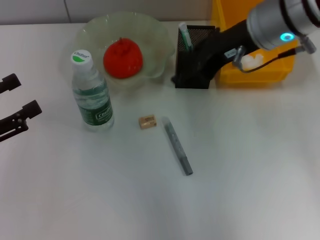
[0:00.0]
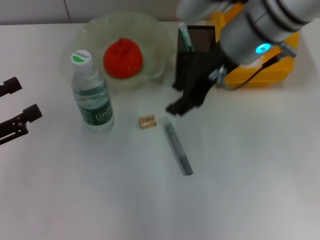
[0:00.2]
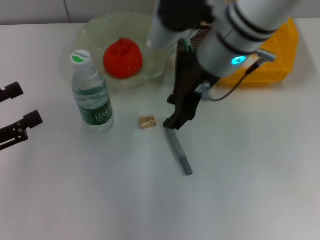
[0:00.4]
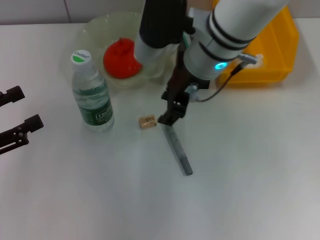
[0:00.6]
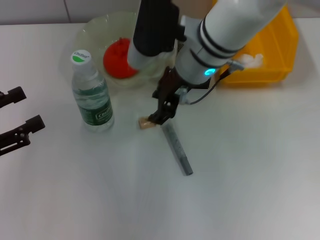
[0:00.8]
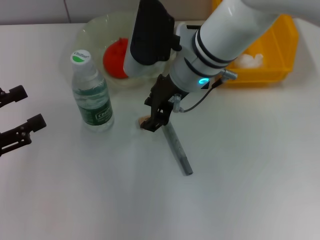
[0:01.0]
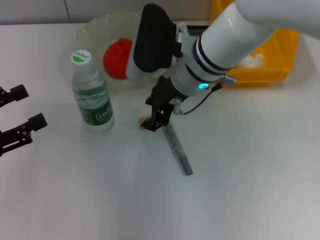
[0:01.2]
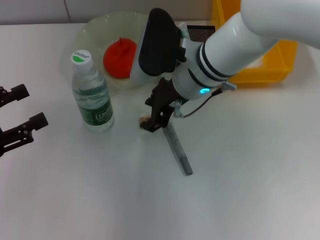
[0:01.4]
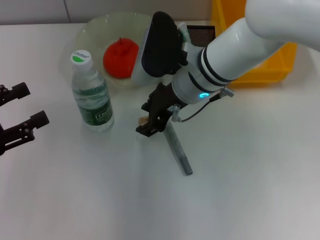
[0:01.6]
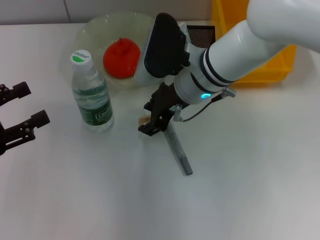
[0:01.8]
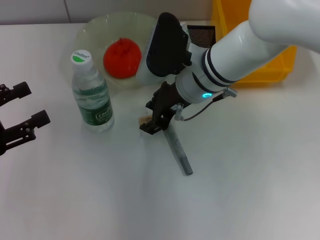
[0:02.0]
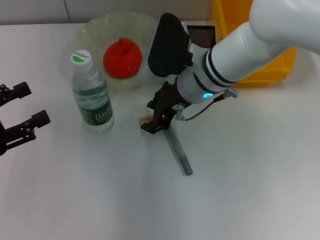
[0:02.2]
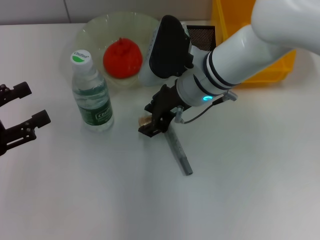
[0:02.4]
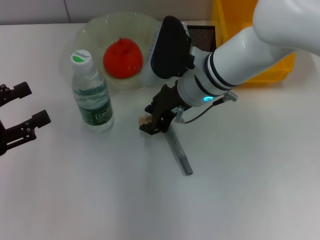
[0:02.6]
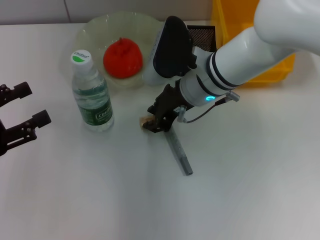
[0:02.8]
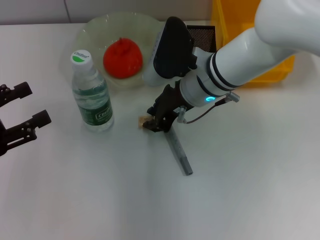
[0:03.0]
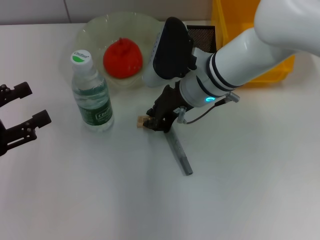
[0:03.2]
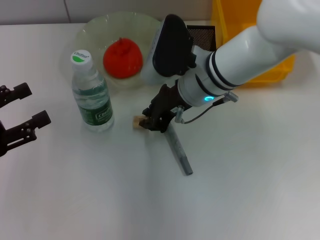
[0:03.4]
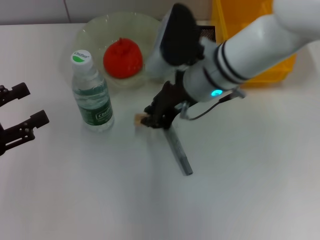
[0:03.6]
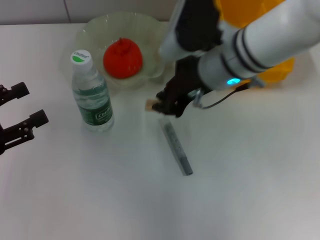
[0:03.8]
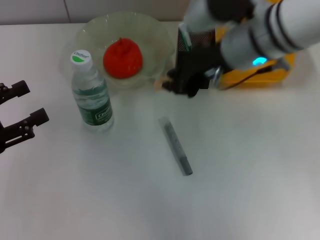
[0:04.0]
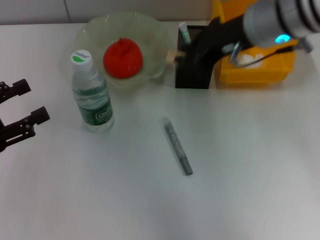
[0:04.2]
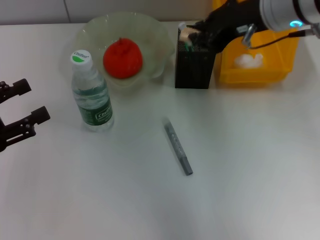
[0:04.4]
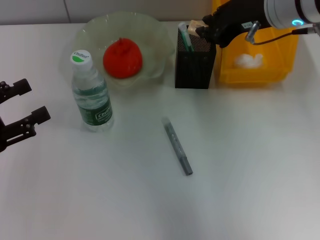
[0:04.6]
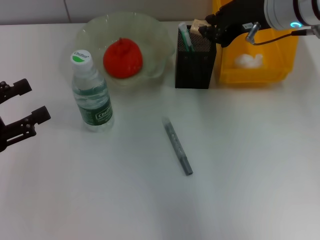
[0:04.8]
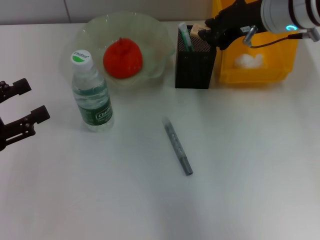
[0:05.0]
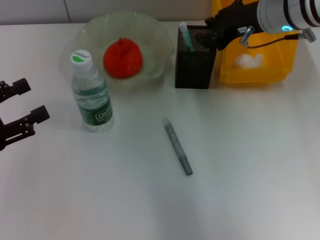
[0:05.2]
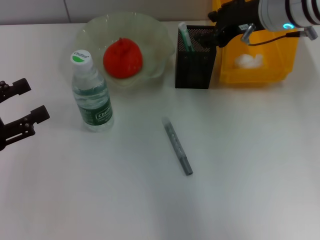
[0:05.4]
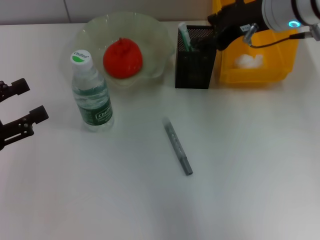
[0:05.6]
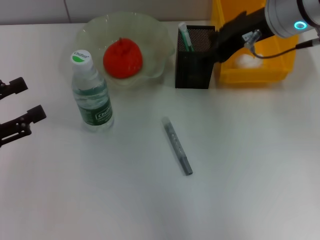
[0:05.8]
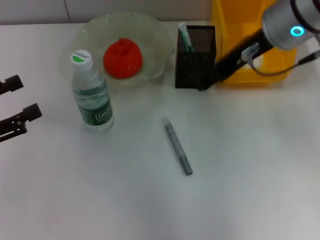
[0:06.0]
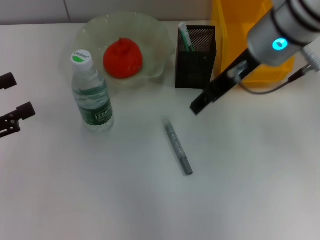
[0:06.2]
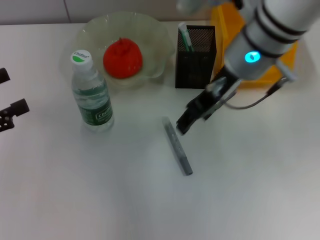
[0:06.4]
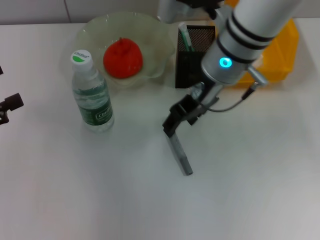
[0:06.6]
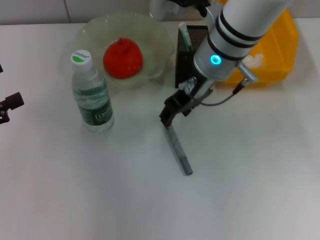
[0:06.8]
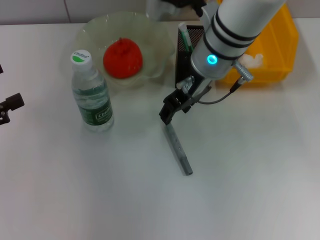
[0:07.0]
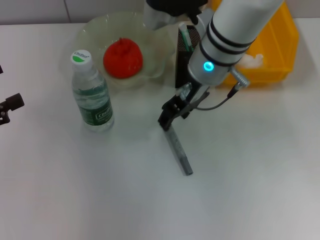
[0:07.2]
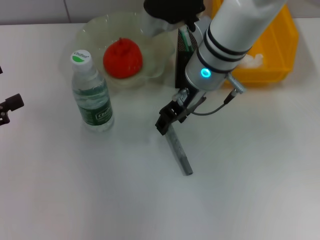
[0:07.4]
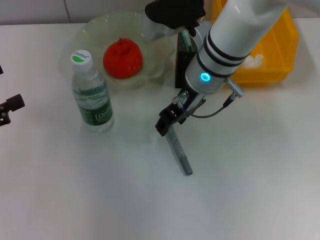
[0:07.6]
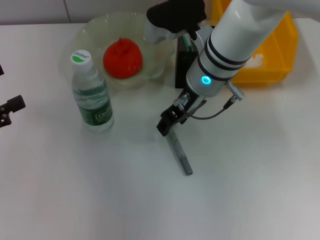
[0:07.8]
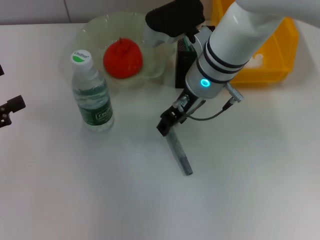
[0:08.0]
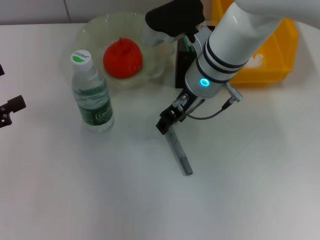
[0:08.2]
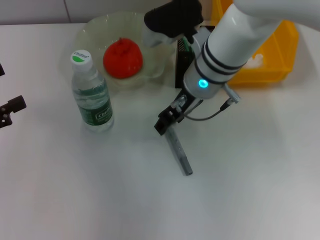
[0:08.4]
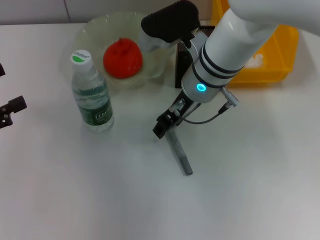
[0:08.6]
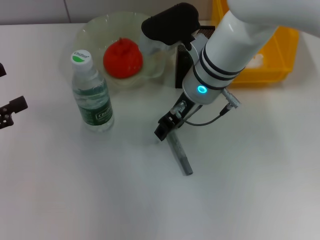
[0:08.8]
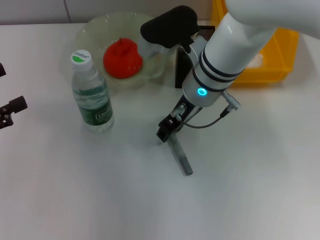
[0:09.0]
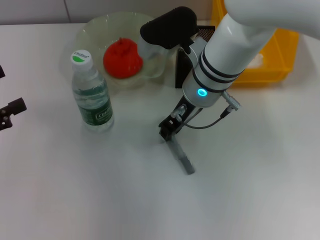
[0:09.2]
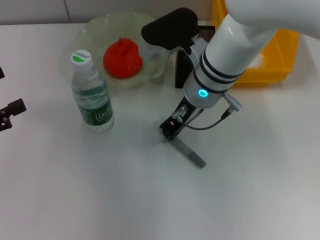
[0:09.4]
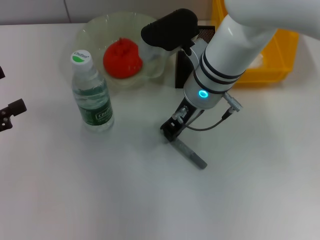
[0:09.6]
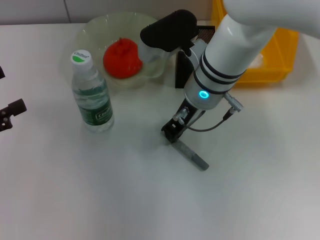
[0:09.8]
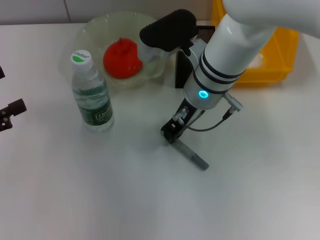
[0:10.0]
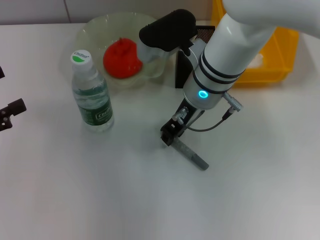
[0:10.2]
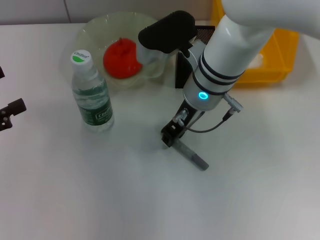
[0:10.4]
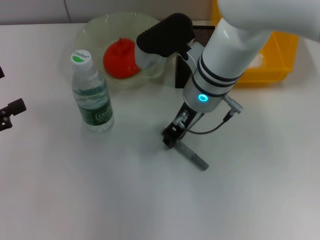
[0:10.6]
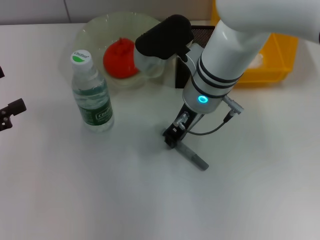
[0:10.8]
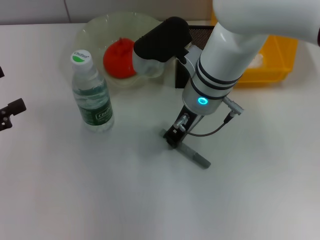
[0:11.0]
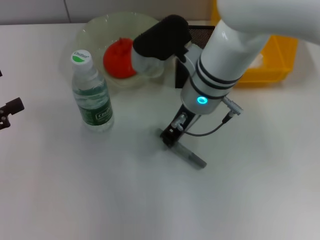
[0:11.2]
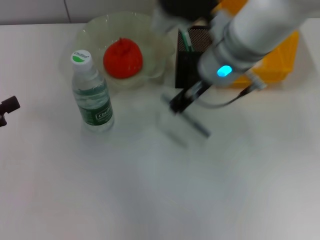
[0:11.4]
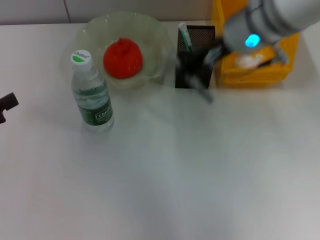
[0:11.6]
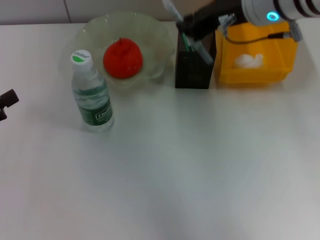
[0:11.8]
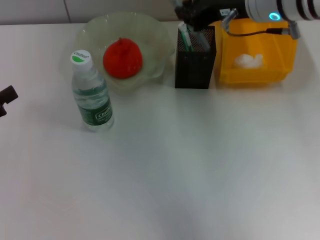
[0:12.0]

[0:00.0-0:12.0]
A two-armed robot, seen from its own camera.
Step, 0:00.0 to 0:03.2: Grab the eraser with the right hand.
Step, 0:03.4 to 0:05.6: Put the eraser into the pen holder with the right hand.
Step, 0:05.8 to 0:11.0: Grab the gray glue with the right hand.
0:00.0 to 0:01.6: The right gripper travels downward and to the left by approximately 15 cm.
0:01.6 to 0:03.0: The grippers stay close to where they were, moving slightly.
0:03.0 to 0:04.4: The right gripper goes roughly 15 cm upward and to the right.
0:04.4 to 0:06.0: The right gripper opens.
0:06.0 to 0:07.6: The right gripper is displaced downward and to the left by roughly 10 cm.
0:07.6 to 0:09.0: The grippers move only a little.
0:09.0 to 0:10.4: The right gripper closes.
0:10.4 to 0:12.0: The right gripper goes approximately 15 cm to the right and upward.

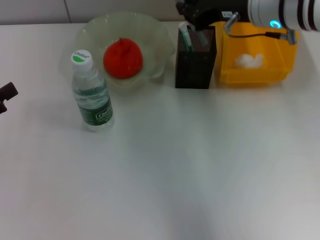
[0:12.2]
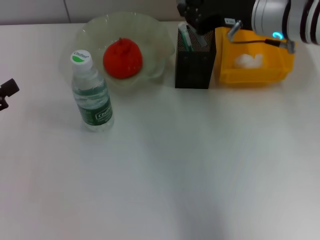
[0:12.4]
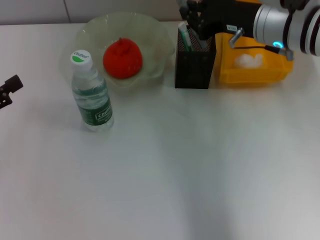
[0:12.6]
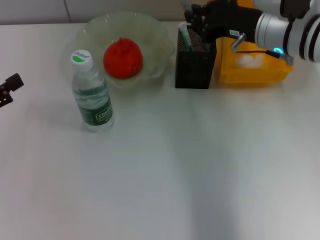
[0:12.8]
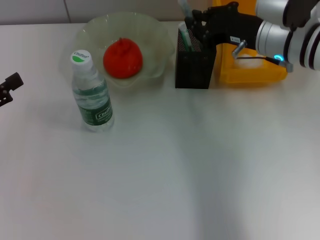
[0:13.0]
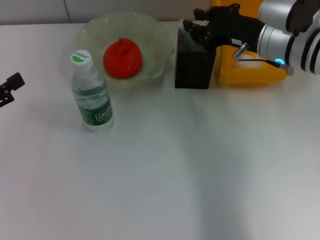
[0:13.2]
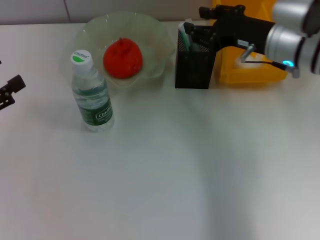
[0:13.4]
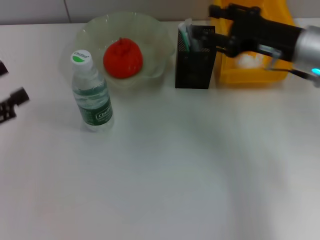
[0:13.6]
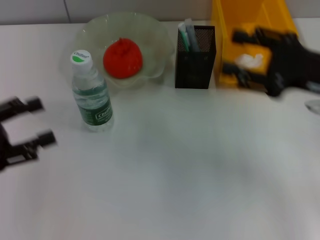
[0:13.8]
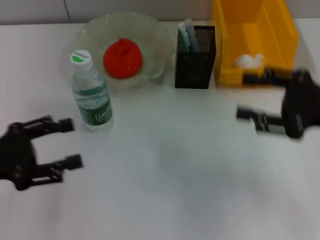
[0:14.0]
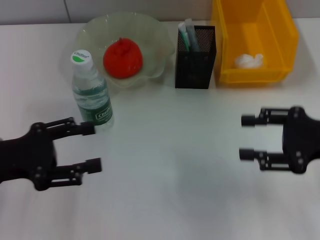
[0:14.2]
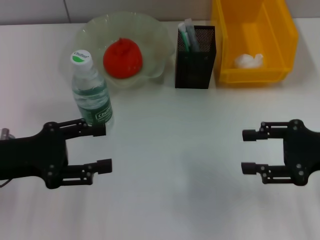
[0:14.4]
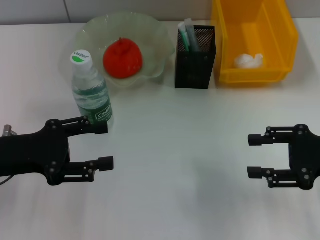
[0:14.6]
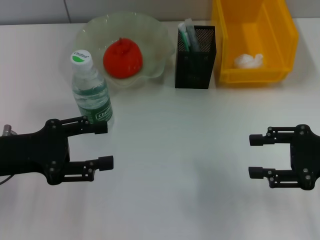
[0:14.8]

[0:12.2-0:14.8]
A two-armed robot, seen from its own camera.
Step, 0:12.2 to 0:13.6: Place the gray glue into the pen holder with the right hand.
0:12.2 to 0:13.4: The right gripper moves downward, approximately 5 cm.
0:13.4 to 0:14.8: The right gripper goes approximately 15 cm backward and to the right, and opens. The left gripper travels to the right by roughly 10 cm.
